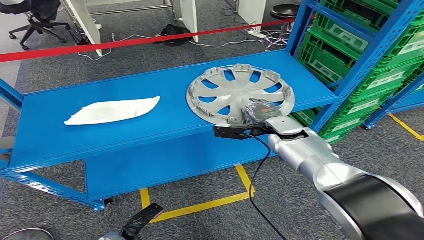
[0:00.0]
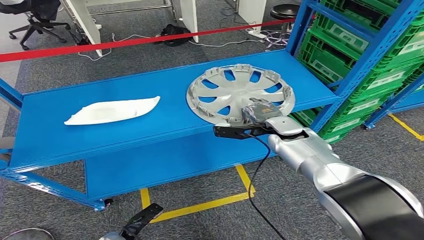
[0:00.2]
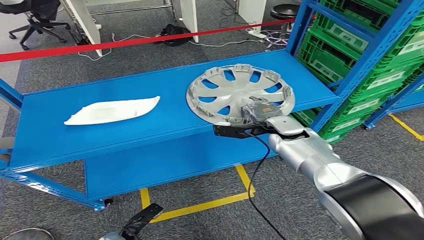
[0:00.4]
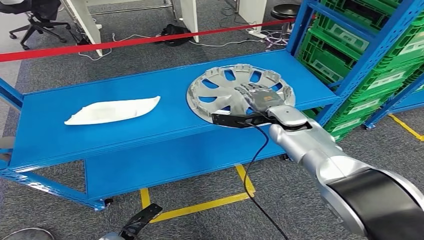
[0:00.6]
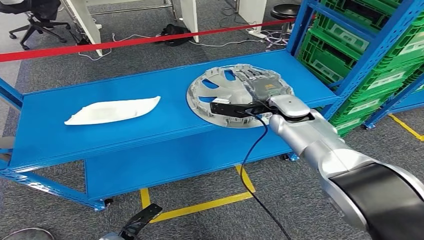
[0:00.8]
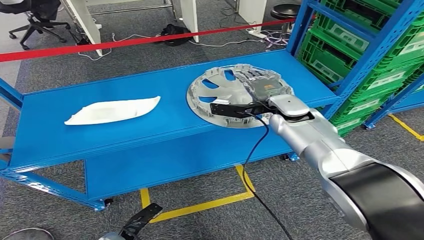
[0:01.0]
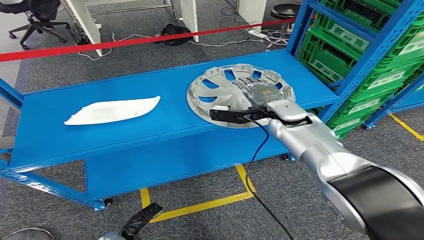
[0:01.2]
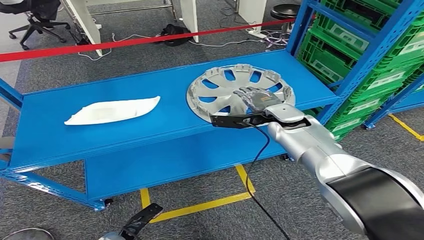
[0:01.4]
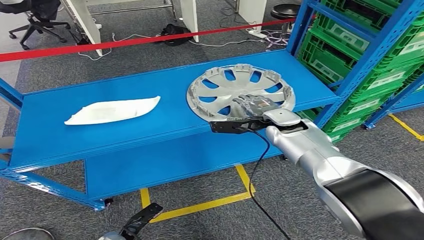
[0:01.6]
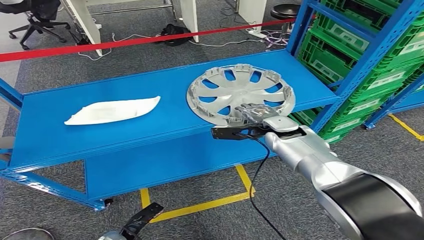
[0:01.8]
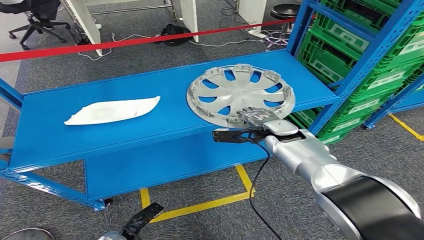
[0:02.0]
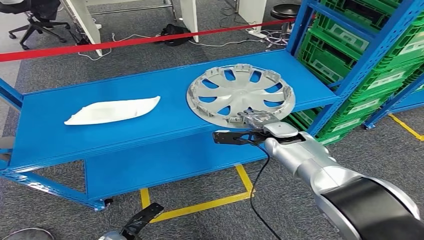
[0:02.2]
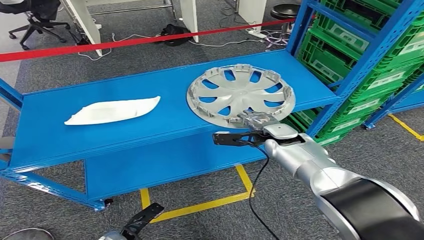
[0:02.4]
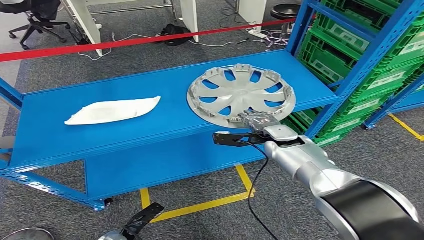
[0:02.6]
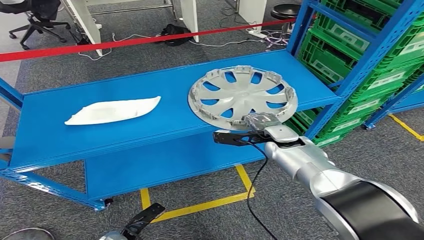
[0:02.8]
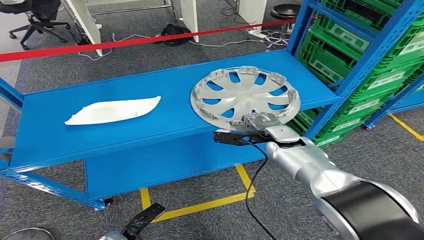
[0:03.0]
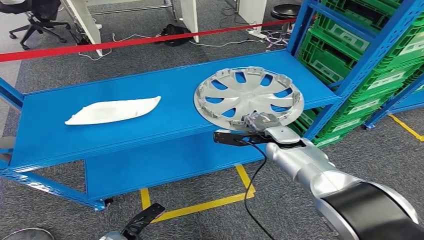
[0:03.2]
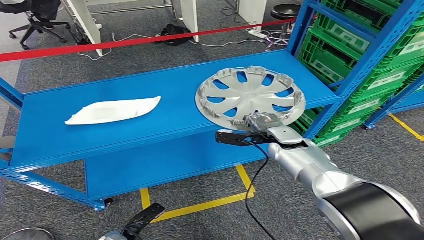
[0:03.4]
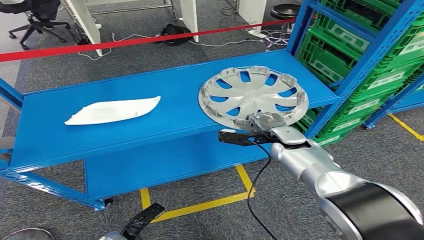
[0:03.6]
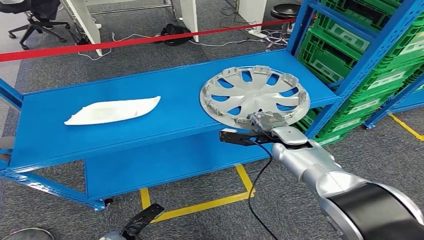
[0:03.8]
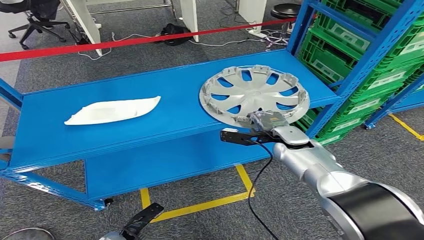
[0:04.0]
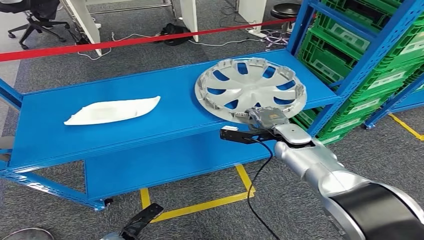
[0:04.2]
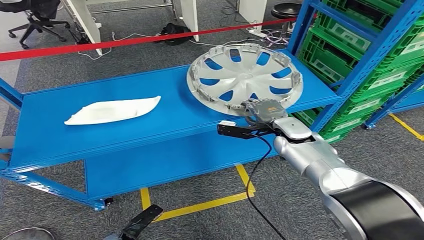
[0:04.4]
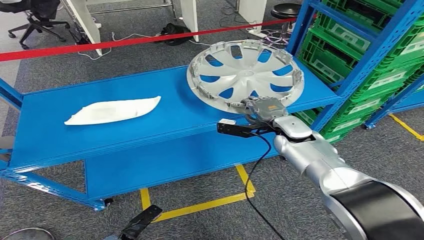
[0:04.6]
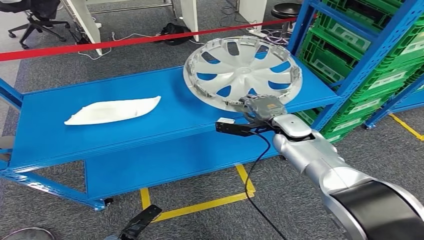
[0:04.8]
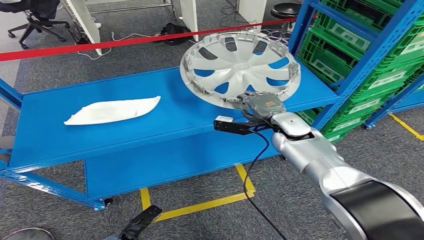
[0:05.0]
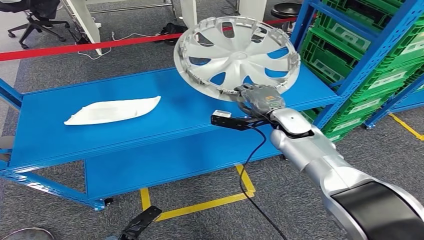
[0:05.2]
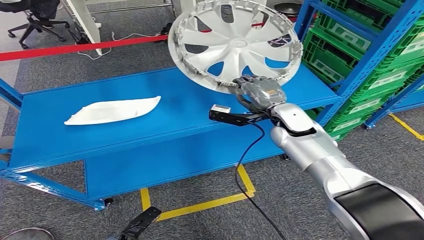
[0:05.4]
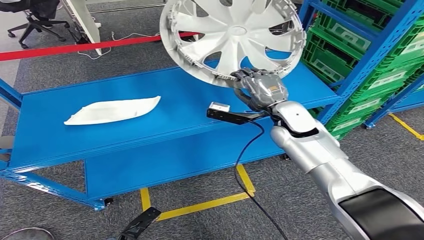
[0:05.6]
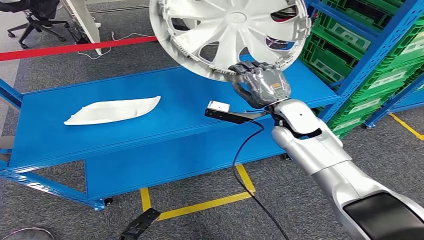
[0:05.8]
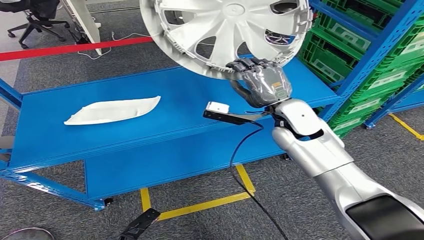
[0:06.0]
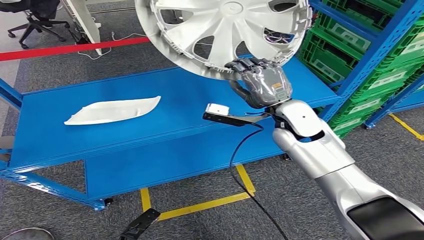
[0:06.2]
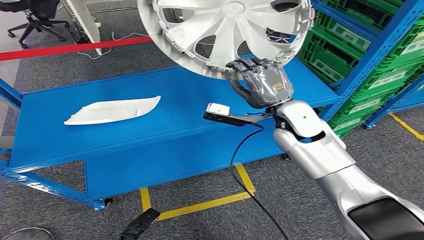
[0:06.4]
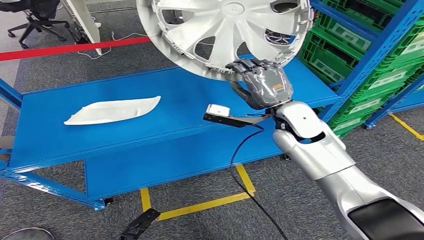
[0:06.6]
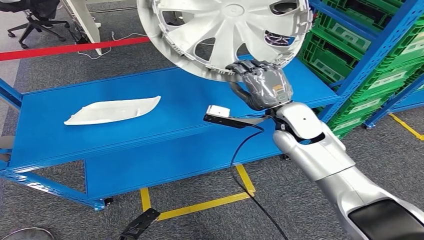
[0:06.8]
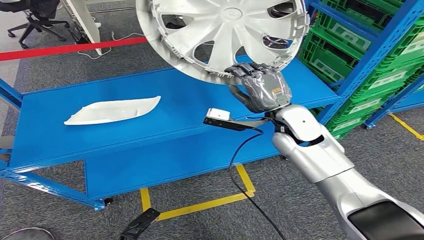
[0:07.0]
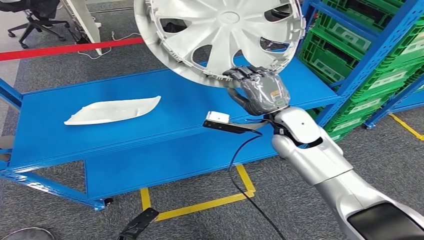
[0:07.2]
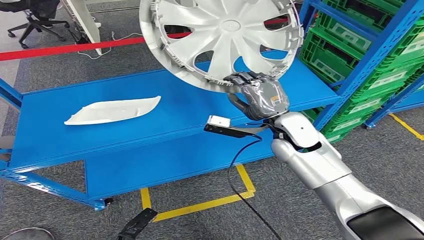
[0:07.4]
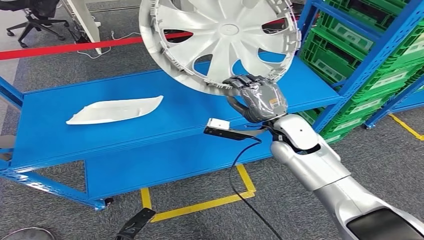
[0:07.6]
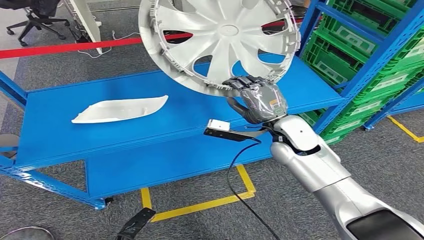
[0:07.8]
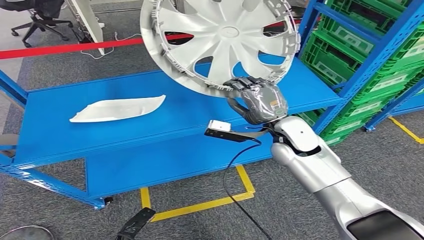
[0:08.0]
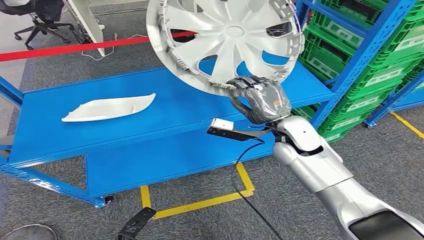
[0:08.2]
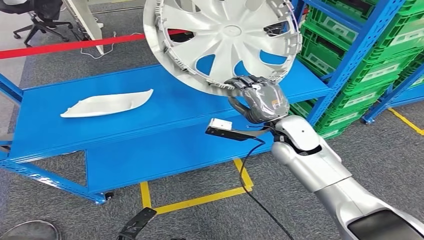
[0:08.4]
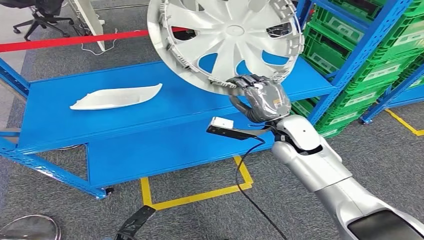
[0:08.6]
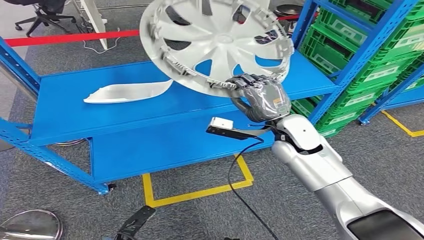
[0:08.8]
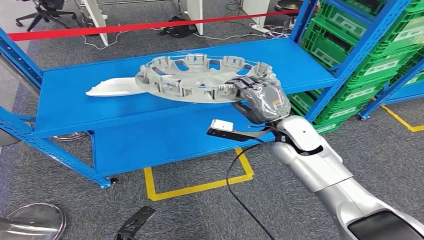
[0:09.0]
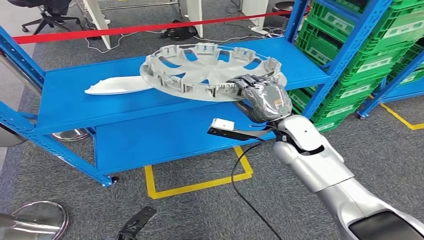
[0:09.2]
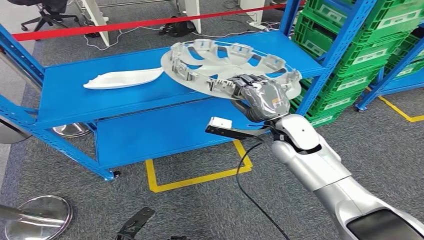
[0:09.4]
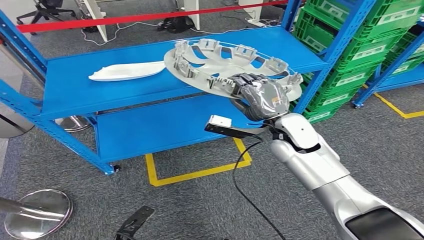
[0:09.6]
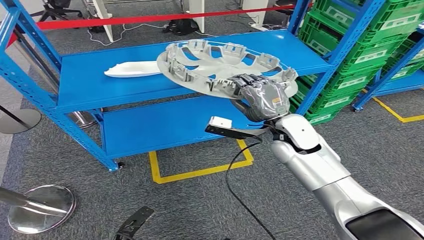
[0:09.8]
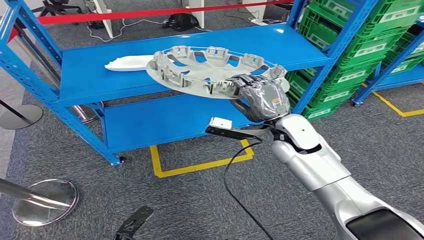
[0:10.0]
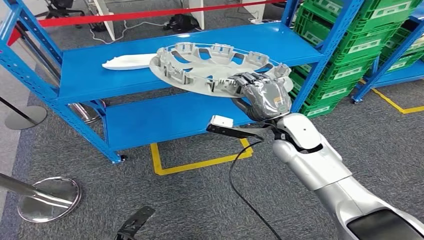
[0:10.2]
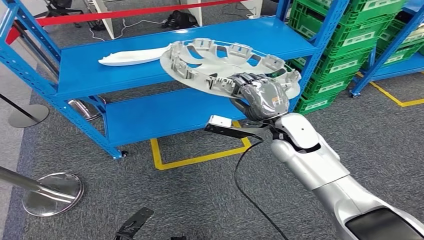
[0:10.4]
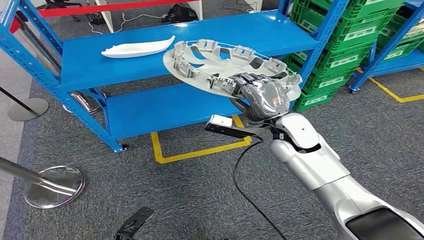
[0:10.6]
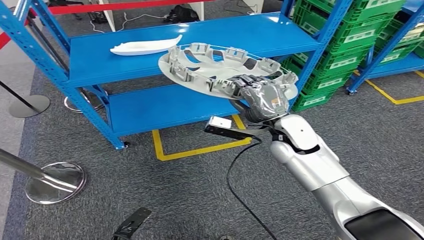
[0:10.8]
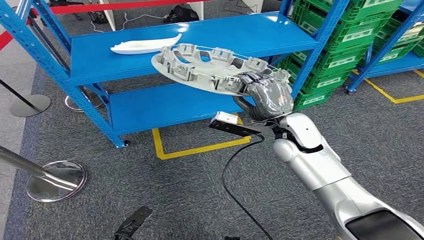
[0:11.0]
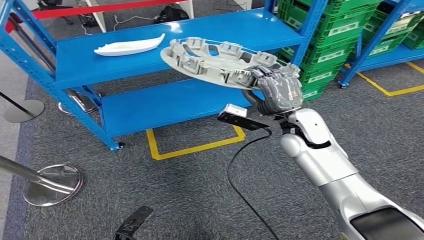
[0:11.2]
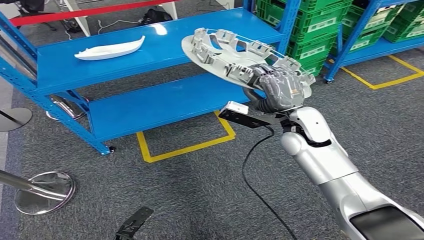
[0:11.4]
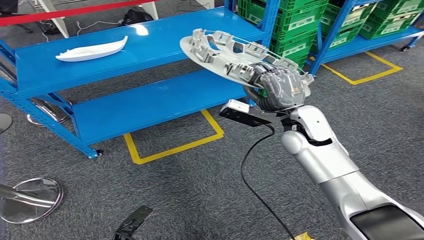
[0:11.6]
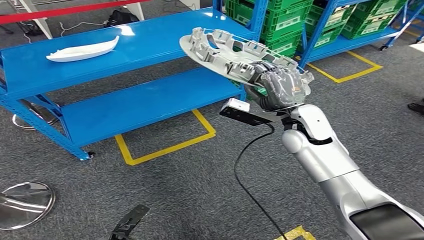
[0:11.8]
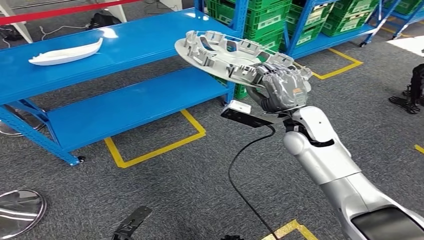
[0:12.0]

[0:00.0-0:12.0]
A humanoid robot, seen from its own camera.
Step, 0:00.0 to 0:06.0: Pick up the small component from the shelf.
0:01.6 to 0:03.0: The right hand shifts about 5 cm downward.
0:03.0 to 0:04.4: The hands make only small movements.

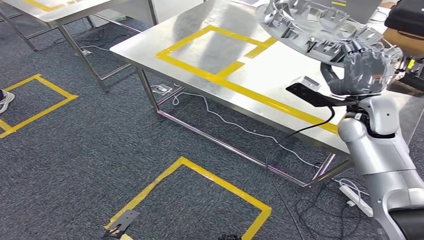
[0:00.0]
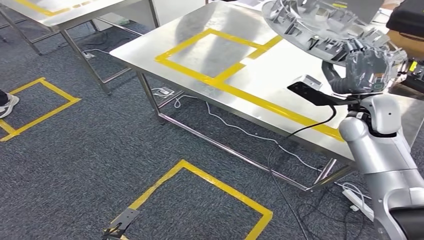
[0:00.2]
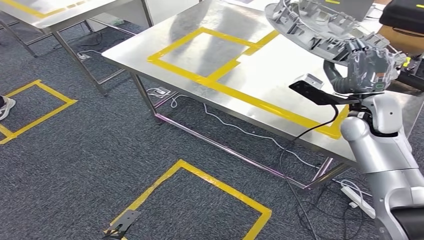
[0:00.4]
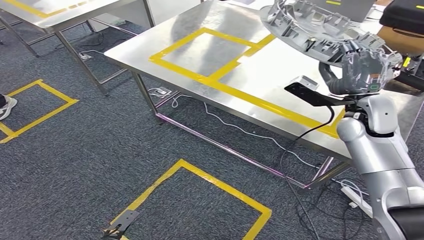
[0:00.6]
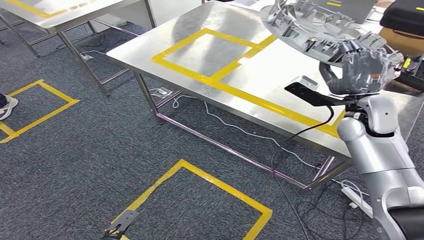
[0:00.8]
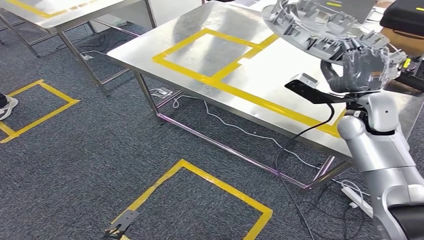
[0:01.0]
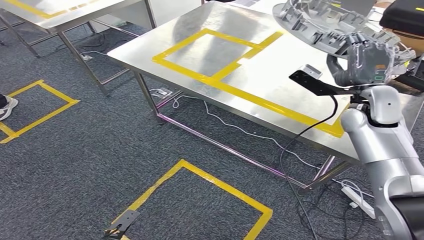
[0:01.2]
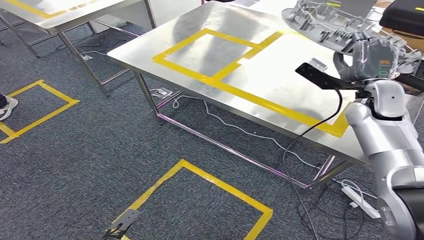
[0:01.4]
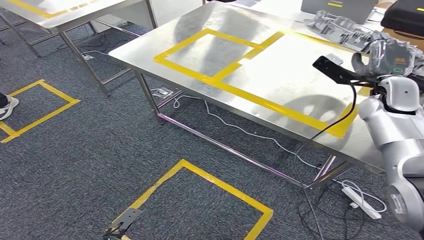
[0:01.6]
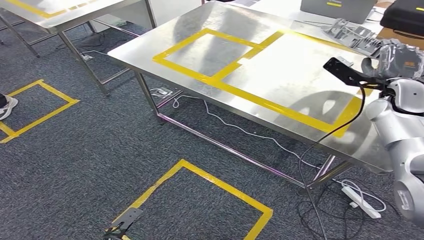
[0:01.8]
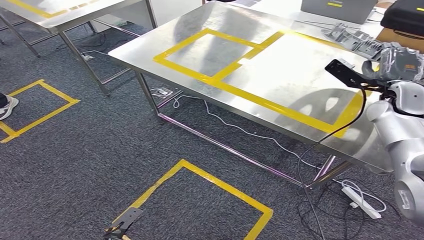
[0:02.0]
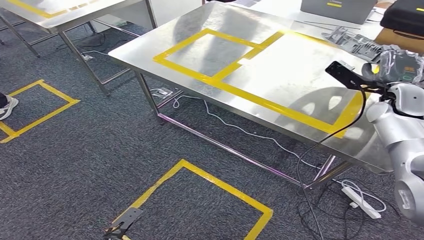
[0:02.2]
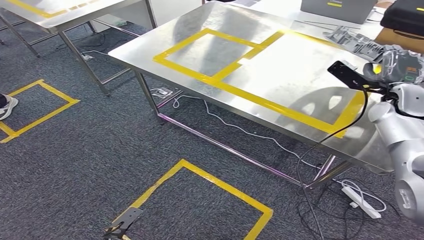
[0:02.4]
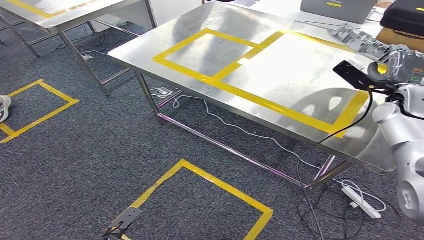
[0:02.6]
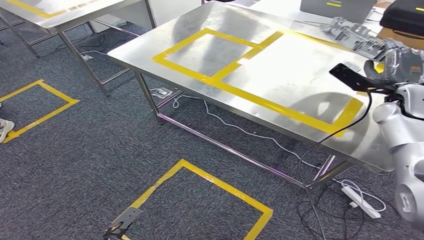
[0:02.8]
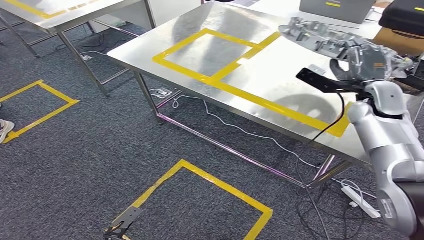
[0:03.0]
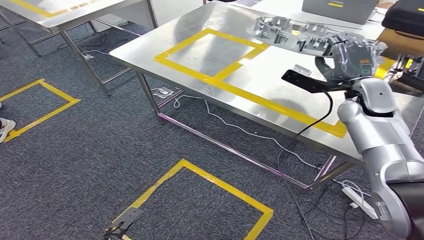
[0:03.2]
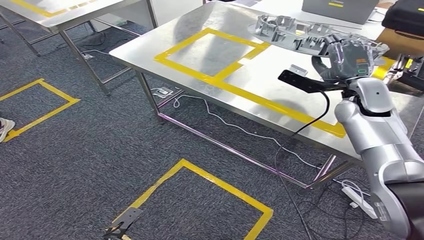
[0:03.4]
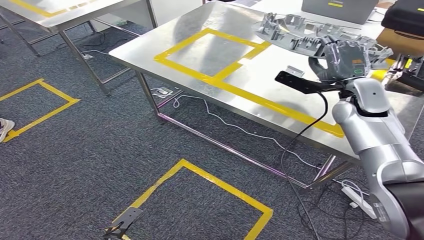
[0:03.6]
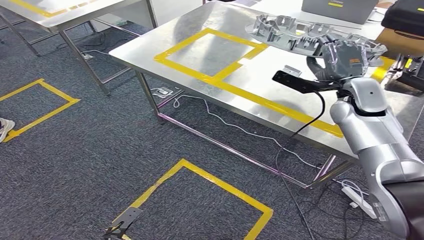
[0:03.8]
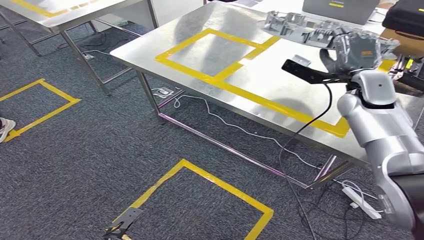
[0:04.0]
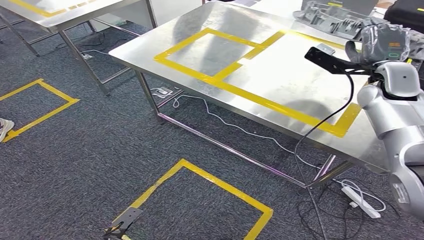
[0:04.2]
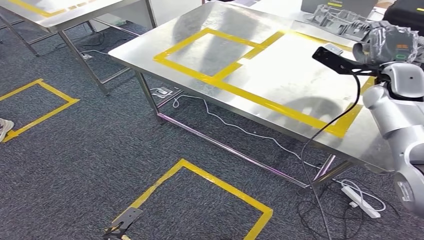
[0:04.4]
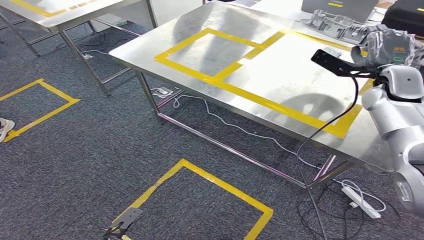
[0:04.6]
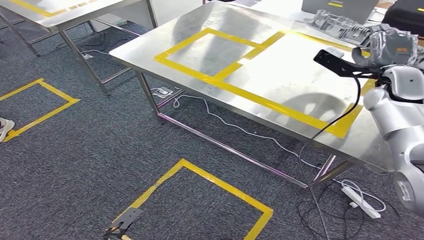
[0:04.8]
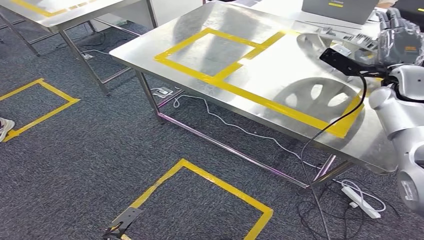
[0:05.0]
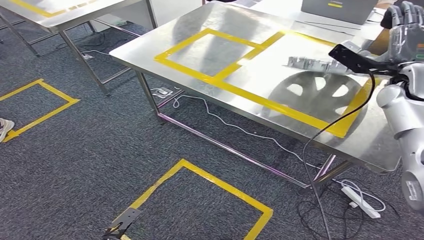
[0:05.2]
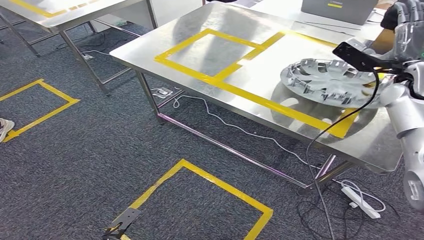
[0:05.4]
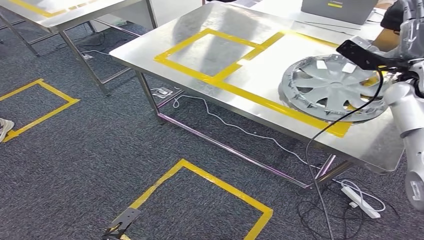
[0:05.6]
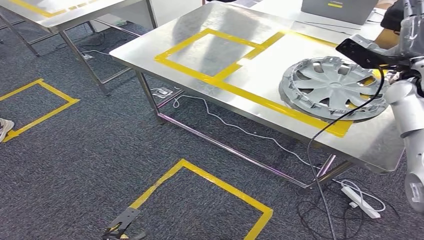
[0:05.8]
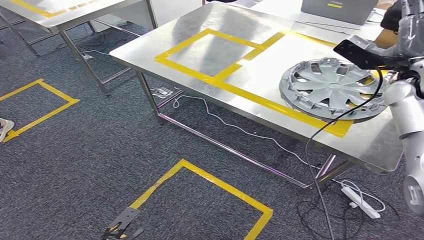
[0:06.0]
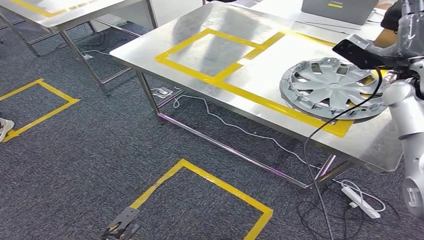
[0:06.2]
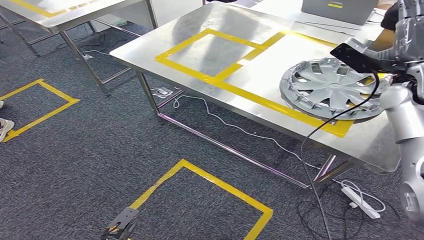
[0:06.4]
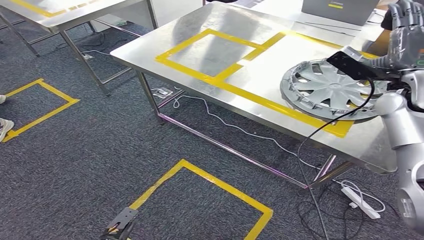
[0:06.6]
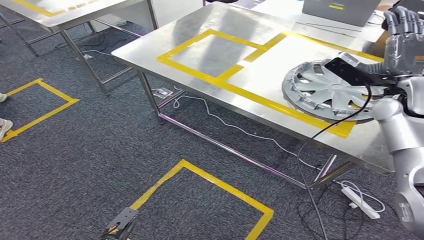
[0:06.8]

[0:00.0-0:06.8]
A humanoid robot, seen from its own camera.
Step, 0:00.0 to 0:03.8: Move the small component to the workbench.
Step, 0:04.0 to 0:06.8: Insert the small component into the corresponding slot on the workbench.
0:01.4 to 0:02.8: The right hand shifts some 5 cm to the right.
0:02.8 to 0:04.0: The right hand goes approximately 10 cm to the left.
0:04.0 to 0:05.4: The right hand travels to the right by some 10 cm.
0:05.4 to 0:06.8: The hands move only a little.
